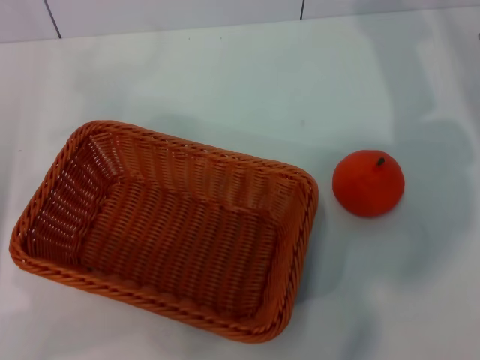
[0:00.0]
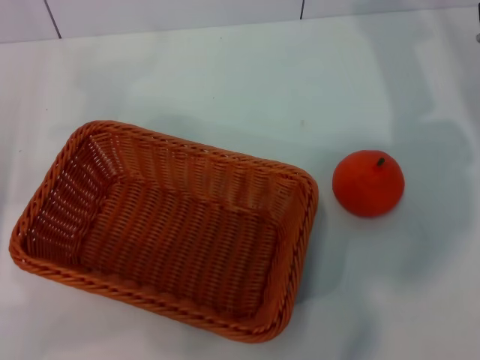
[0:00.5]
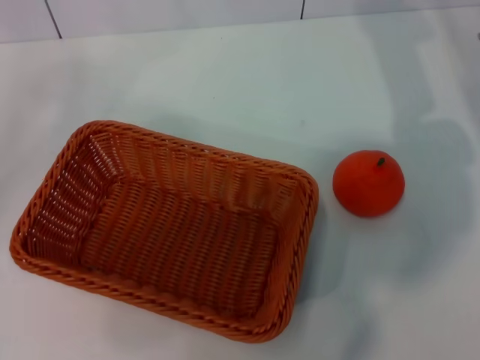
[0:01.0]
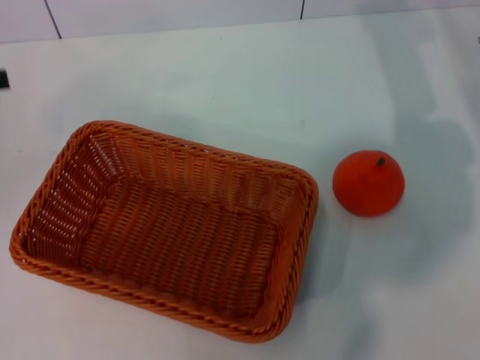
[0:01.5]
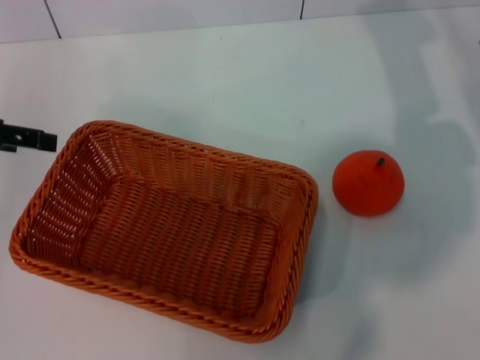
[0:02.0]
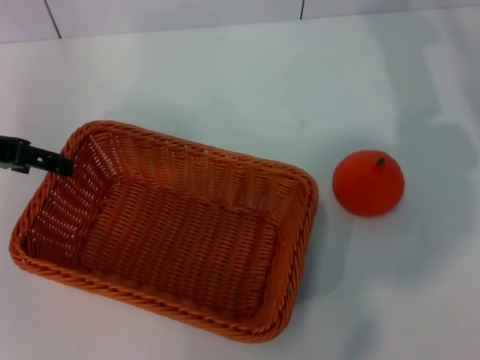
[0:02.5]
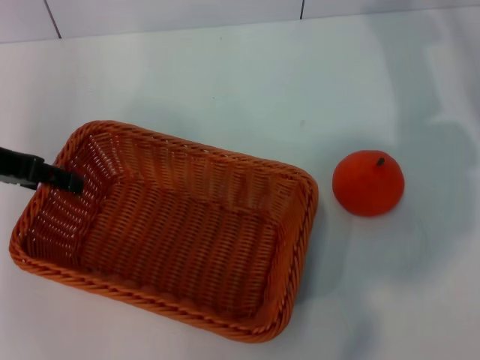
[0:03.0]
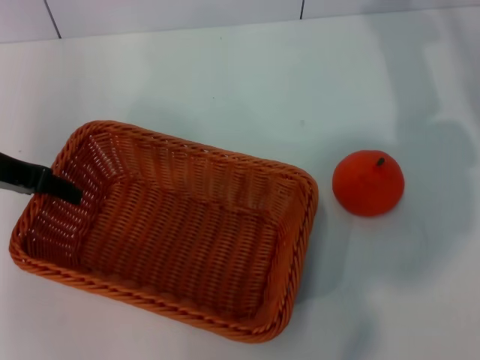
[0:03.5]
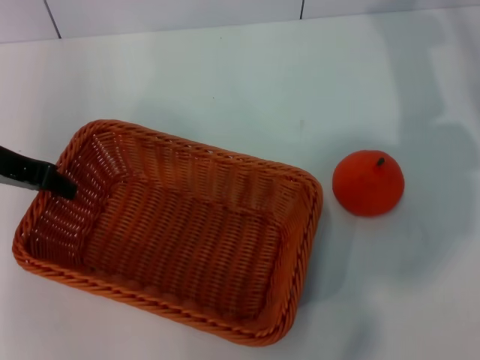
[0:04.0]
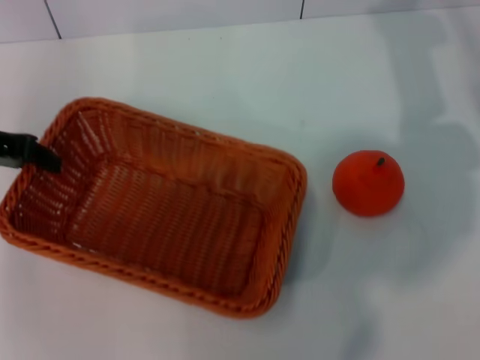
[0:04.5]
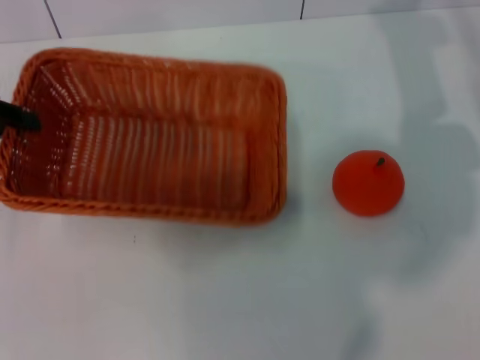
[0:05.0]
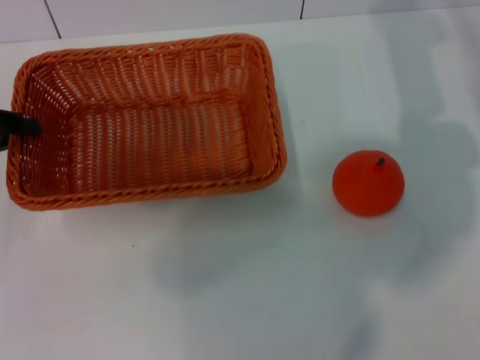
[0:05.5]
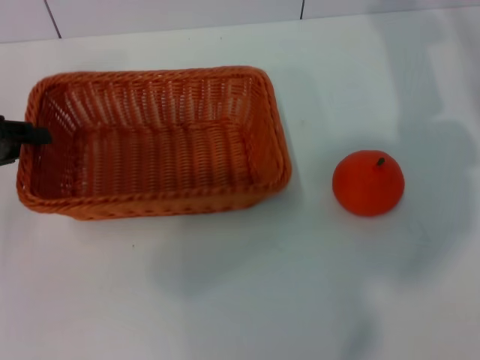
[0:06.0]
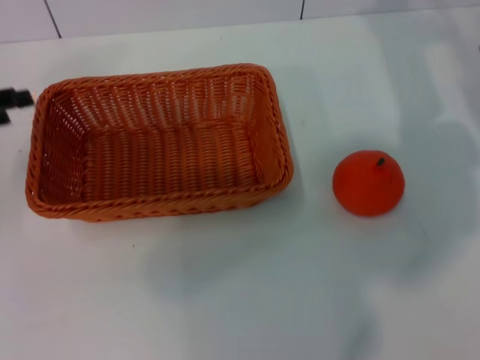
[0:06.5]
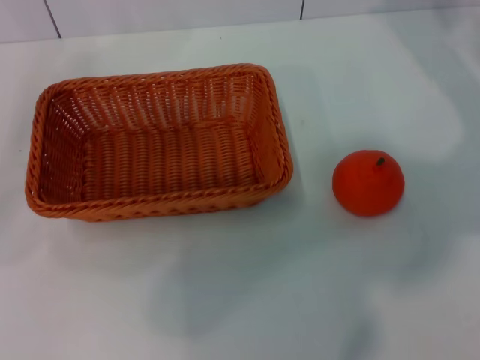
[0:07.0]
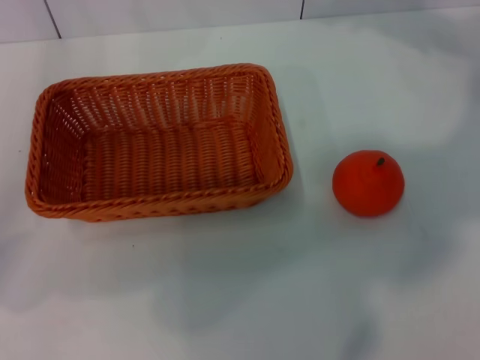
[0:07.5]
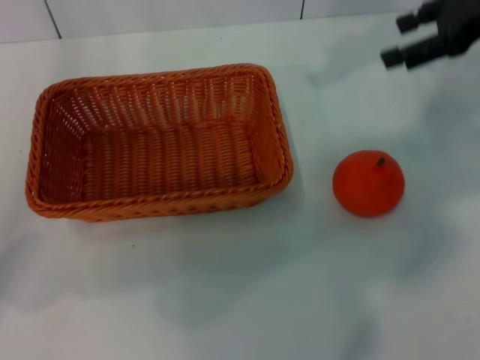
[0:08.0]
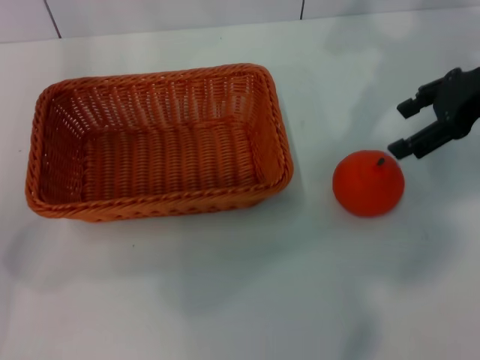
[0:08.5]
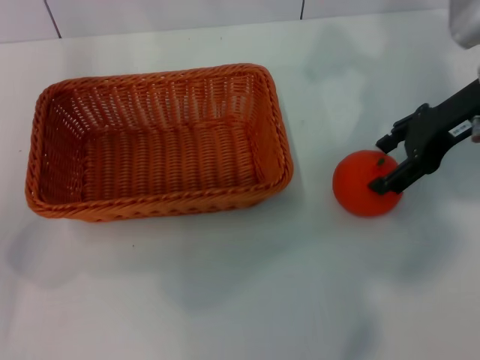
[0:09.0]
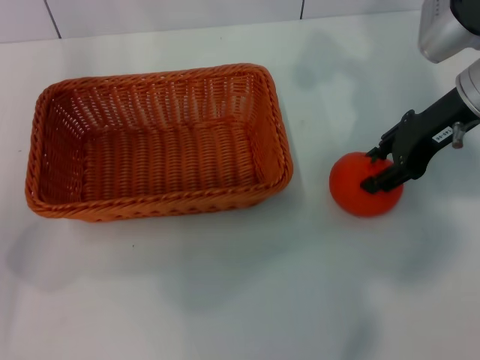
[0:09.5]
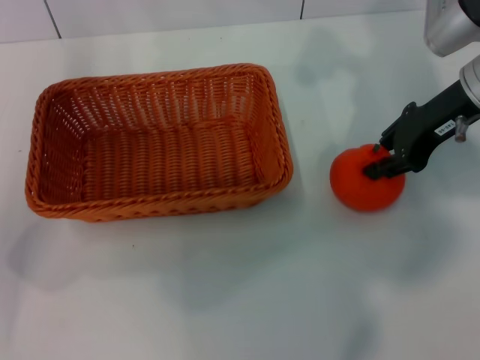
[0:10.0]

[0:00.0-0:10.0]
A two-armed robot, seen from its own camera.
Task of the whole recording: the left gripper pick up the yellow basket and place it horizontally in the middle of the table, the right gripper pick up the orange and place it into the yellow basket.
Step, 0:00.0 to 0:05.0: Pick up the light basket with the left gripper.
Step, 0:05.5 to 0:06.0: Place the light basket in the center of view with the left gripper.
0:00.0 to 0:02.0: The left gripper heads upward and forward, covering approximately 15 cm.
0:02.0 to 0:04.0: The left gripper is displaced to the right by approximately 5 cm, and closes its fingers.
0:04.0 to 0:06.0: The left gripper moves to the left, approximately 5 cm.
0:06.0 to 0:08.0: The left gripper shifts by roughly 5 cm, and opens. The right gripper travels upward by approximately 10 cm.
0:08.0 to 0:10.0: The right gripper travels downward and to the left by about 10 cm, and closes.

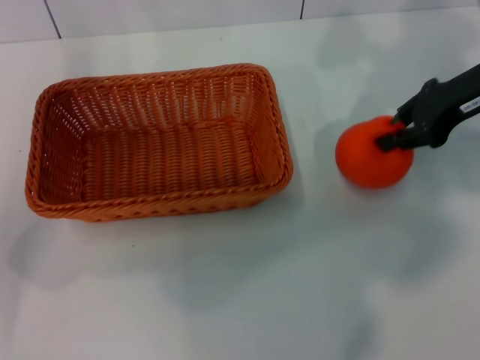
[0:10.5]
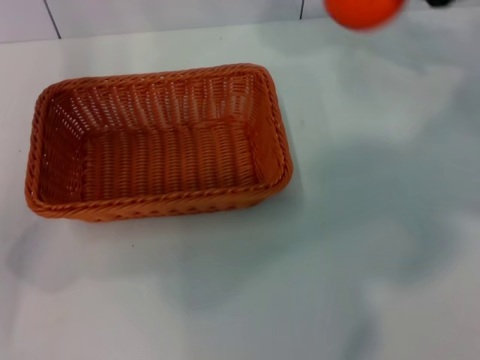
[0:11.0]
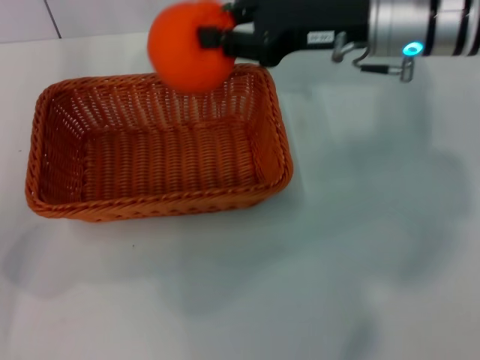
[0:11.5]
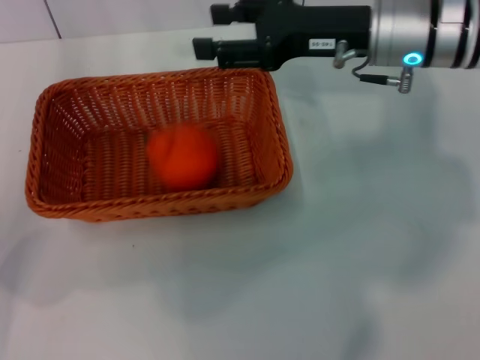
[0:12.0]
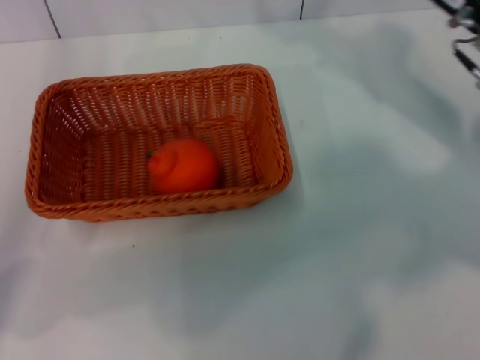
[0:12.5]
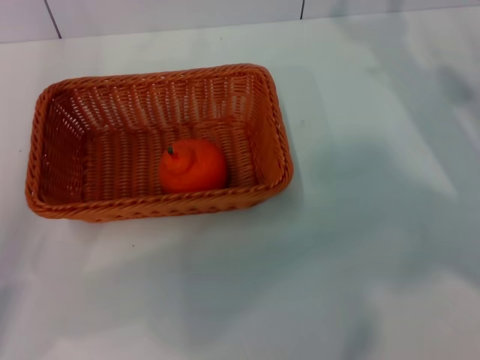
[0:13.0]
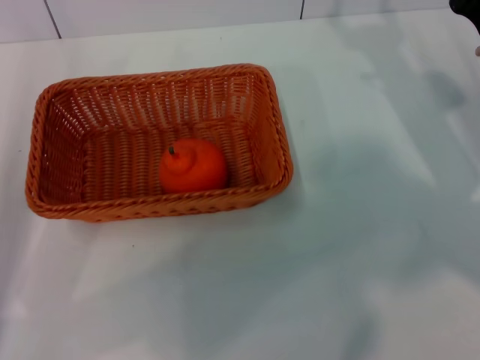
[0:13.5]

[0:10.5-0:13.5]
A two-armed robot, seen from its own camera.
Task of the whole recording: the left gripper pick up the yellow basket and place it horizontally in the middle of the table, the right gripper pick up the orange and place it into the yellow basket.
Step, 0:11.0 to 0:11.5: Place the orange into the light basket with the right gripper.
0:10.5 to 0:12.0: The right gripper heads to the left, covering some 10 cm, and opens.
0:12.0 to 0:13.5: The right gripper travels to the right, downward and backward by roughly 15 cm; the left gripper heads backward, covering some 5 cm.

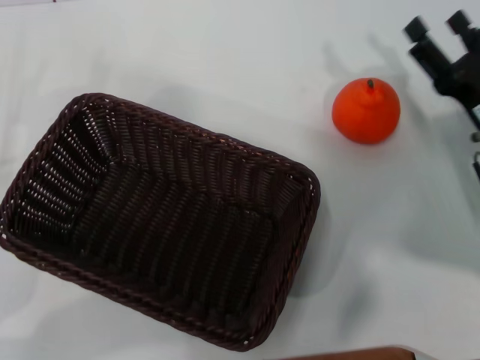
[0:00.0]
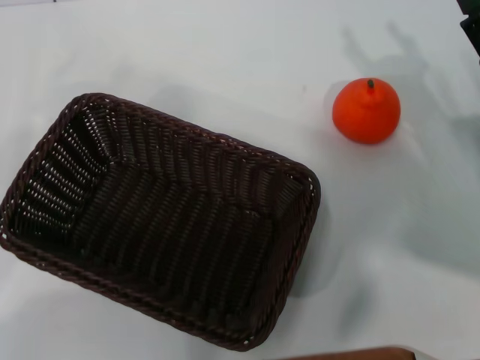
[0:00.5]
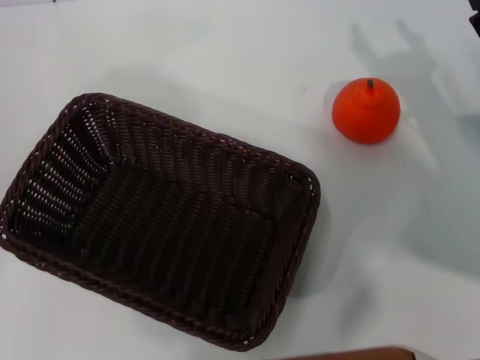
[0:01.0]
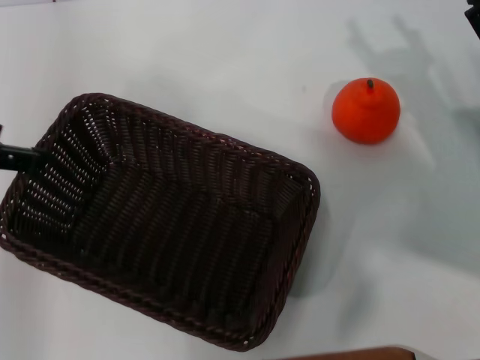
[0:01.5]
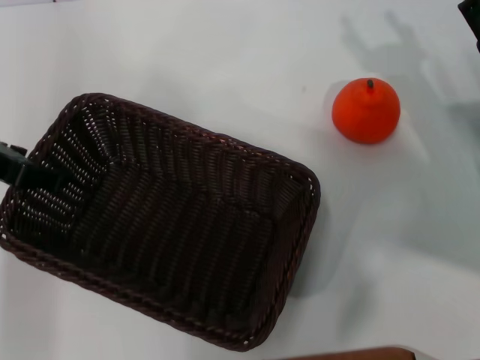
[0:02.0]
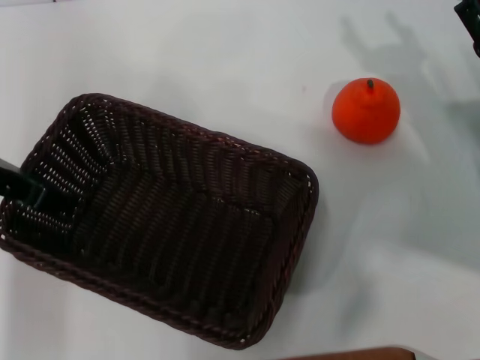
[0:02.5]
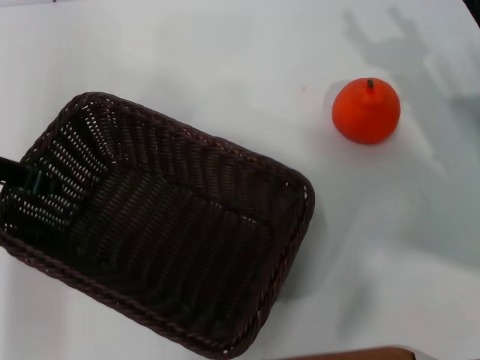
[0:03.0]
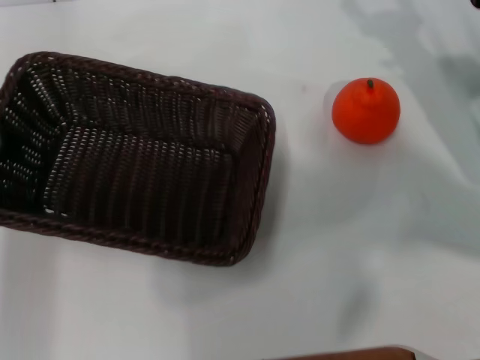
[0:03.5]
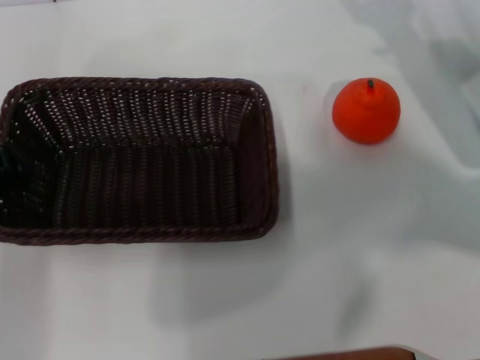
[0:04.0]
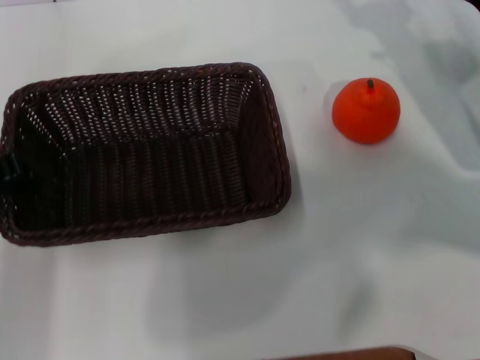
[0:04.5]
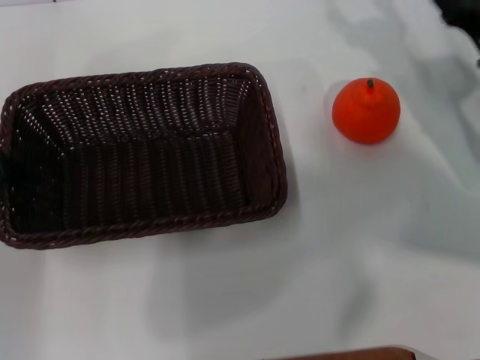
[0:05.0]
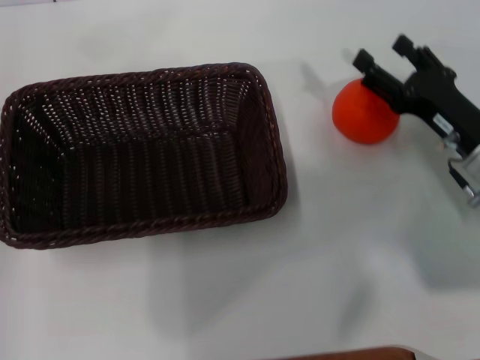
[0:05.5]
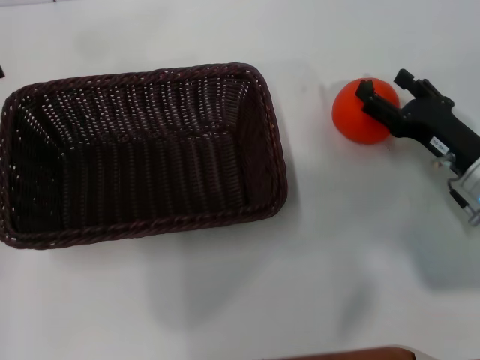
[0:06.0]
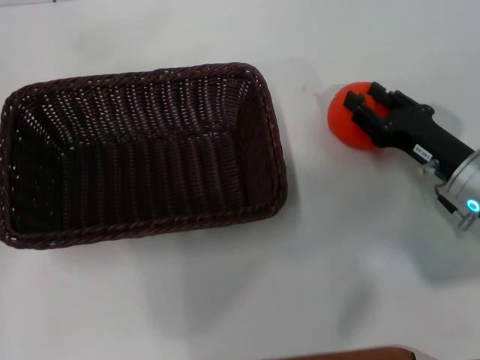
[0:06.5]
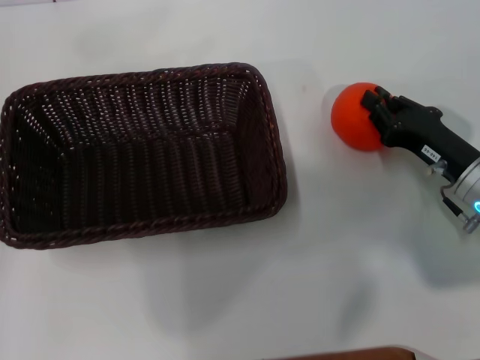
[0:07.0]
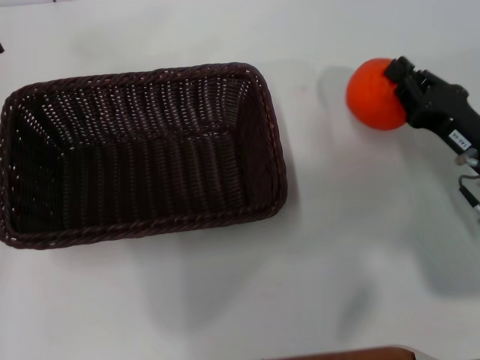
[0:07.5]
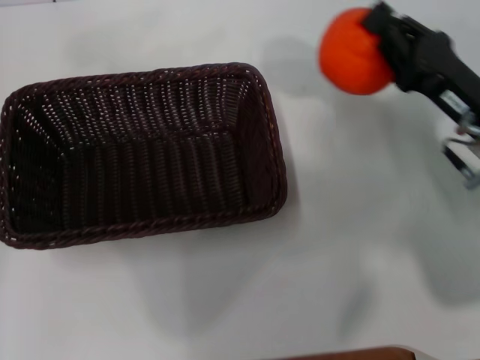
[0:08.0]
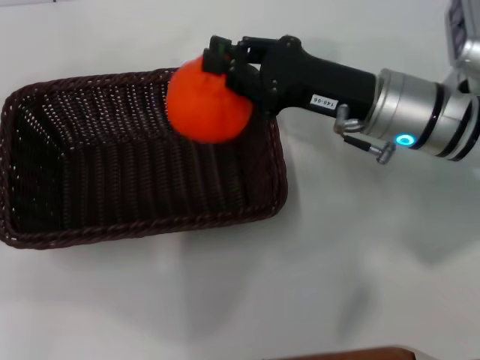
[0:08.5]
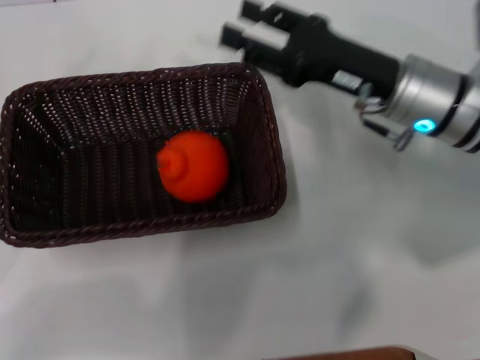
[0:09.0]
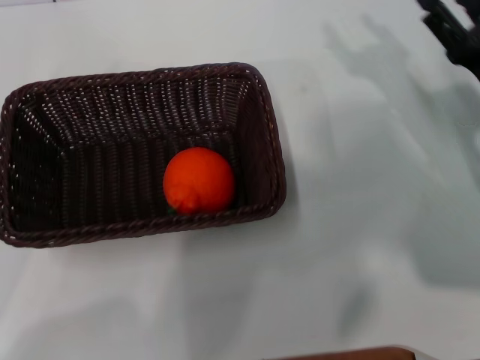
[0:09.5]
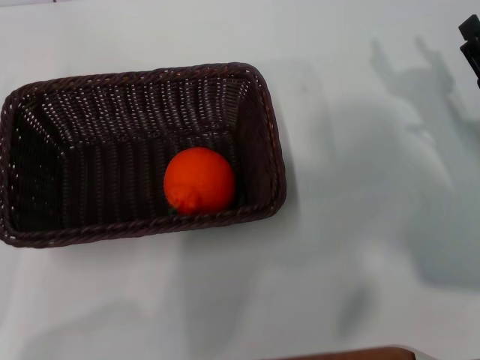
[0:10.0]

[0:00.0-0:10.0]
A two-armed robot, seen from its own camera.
Task of the whole recording: the left gripper pick up the black basket and place it horizontally in the middle of the table, the right gripper pick up the orange and place it into the black basket.
Step, 0:00.0 to 0:03.0: Pick up the dark basket with the left gripper.
Step, 0:03.5 to 0:05.5: Place the dark basket in the center of view with the left gripper.
Step, 0:06.0 to 0:07.5: Pick up the orange with the right gripper.
Step, 0:08.0 to 0:09.0: Place the orange into the dark basket with the right gripper.
0:00.0 to 0:02.0: The left gripper is displaced upward, forward and to the right by some 20 cm.
0:02.0 to 0:04.0: The left gripper closes; the right gripper moves forward, roughly 5 cm.
0:04.0 to 0:06.0: The right gripper shifts about 10 cm backward and downward; the left gripper heads to the left, covering some 5 cm, and opens.
0:06.0 to 0:08.0: The right gripper heads upward, covering about 5 cm, and closes.
0:08.0 to 0:10.0: The right gripper moves to the right, about 5 cm, and opens up. The left gripper travels downward and backward by approximately 15 cm.
